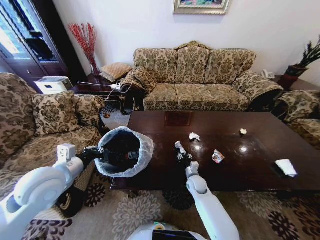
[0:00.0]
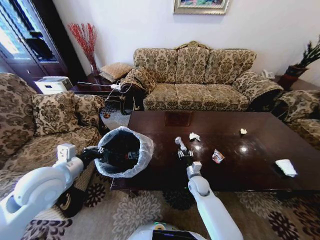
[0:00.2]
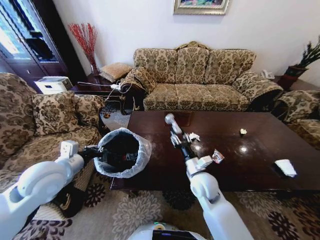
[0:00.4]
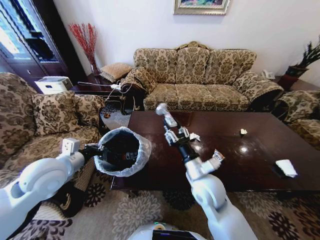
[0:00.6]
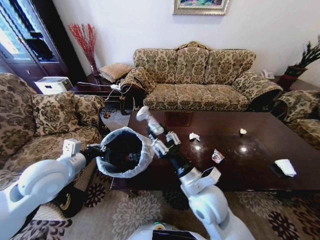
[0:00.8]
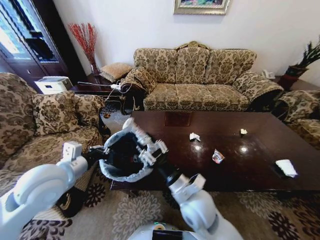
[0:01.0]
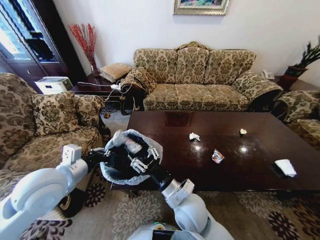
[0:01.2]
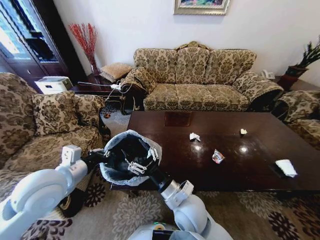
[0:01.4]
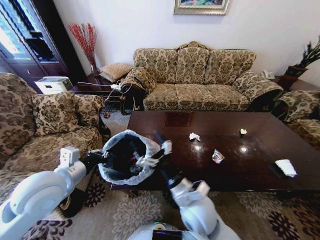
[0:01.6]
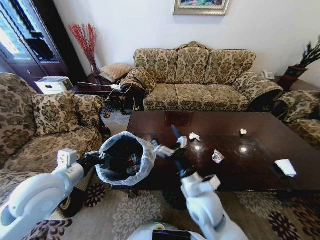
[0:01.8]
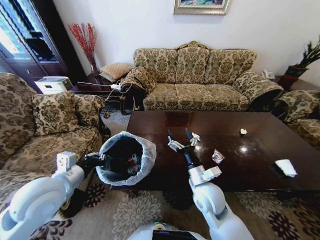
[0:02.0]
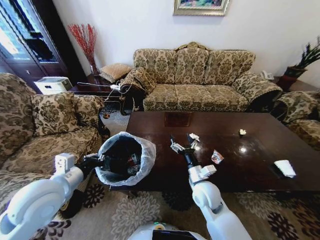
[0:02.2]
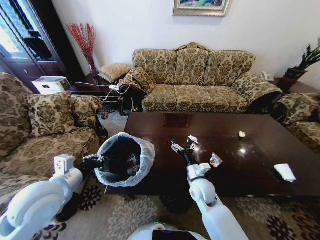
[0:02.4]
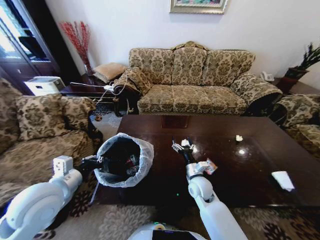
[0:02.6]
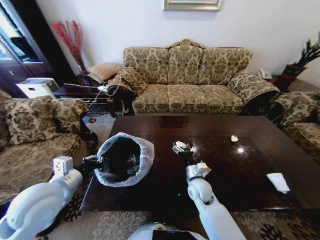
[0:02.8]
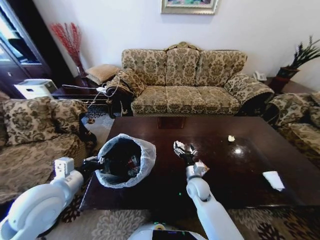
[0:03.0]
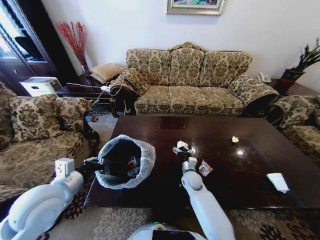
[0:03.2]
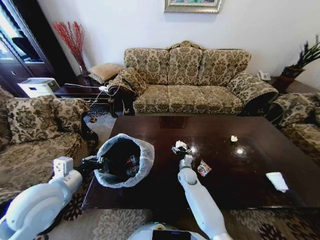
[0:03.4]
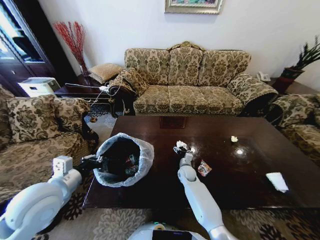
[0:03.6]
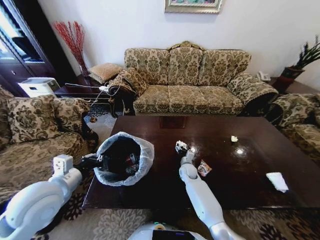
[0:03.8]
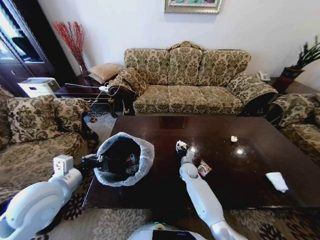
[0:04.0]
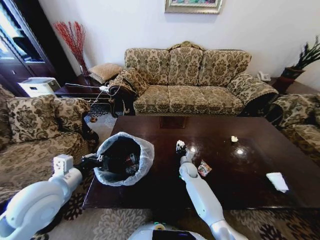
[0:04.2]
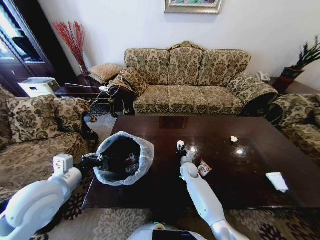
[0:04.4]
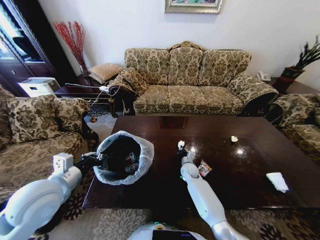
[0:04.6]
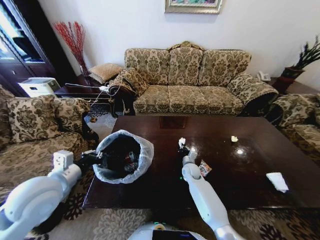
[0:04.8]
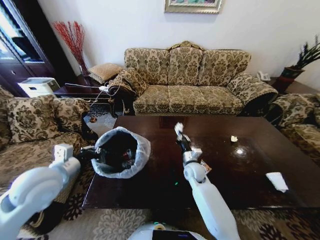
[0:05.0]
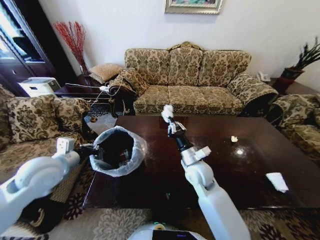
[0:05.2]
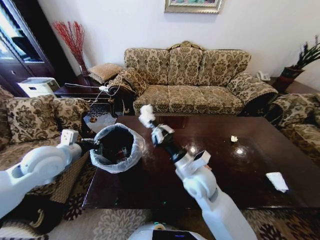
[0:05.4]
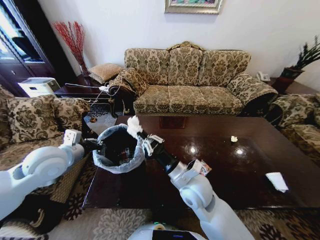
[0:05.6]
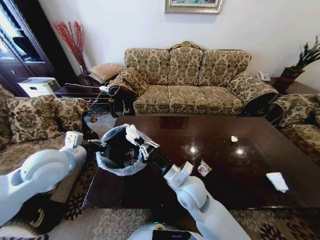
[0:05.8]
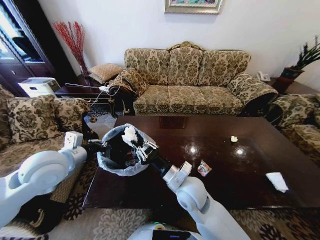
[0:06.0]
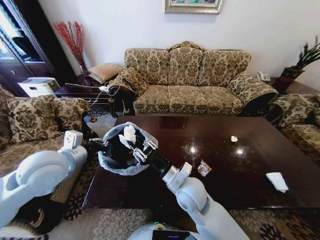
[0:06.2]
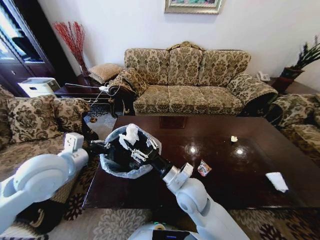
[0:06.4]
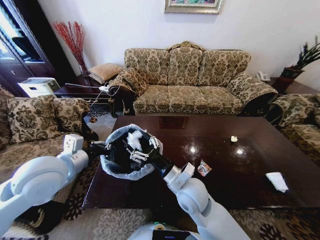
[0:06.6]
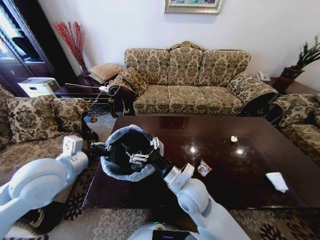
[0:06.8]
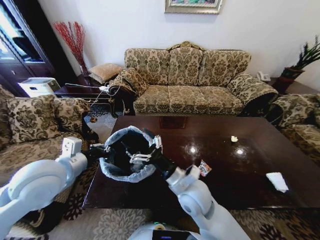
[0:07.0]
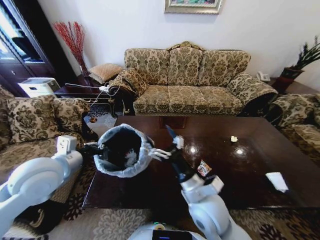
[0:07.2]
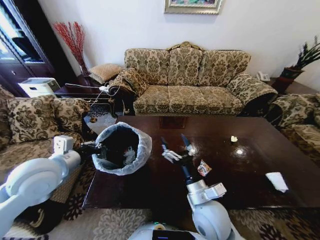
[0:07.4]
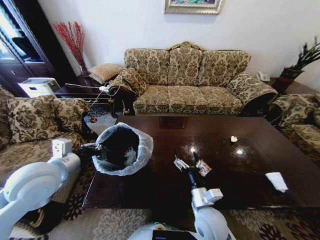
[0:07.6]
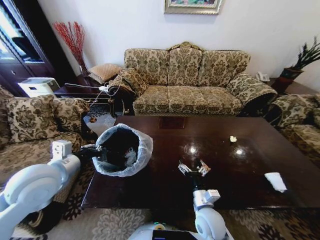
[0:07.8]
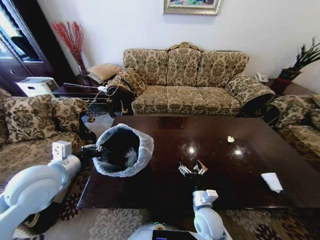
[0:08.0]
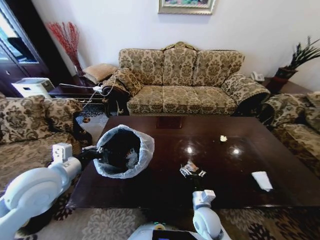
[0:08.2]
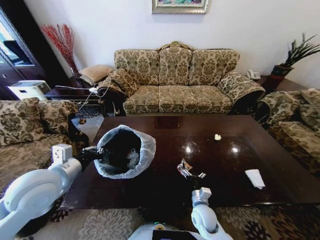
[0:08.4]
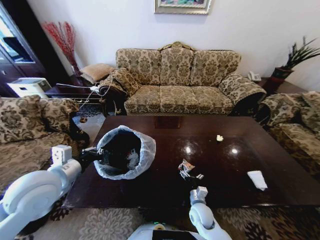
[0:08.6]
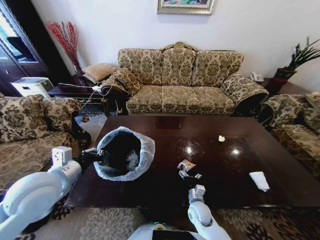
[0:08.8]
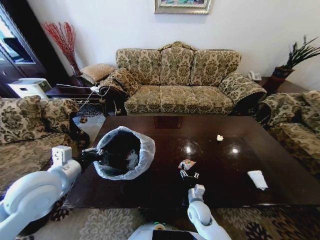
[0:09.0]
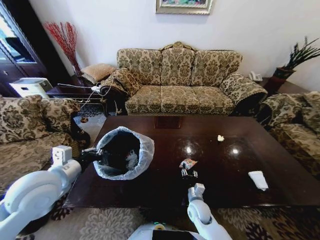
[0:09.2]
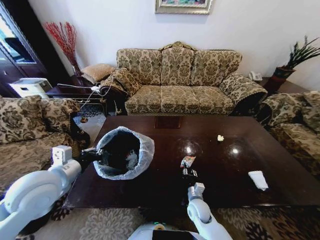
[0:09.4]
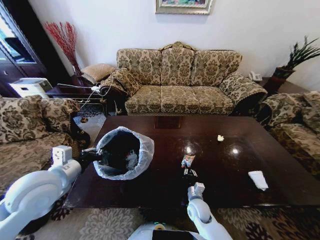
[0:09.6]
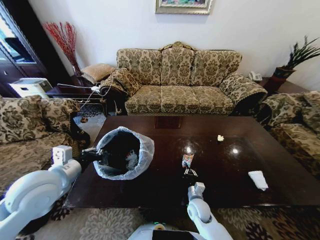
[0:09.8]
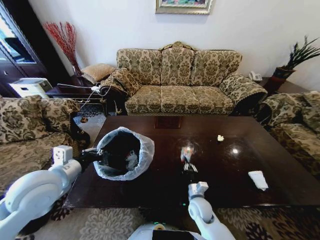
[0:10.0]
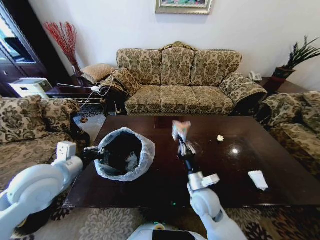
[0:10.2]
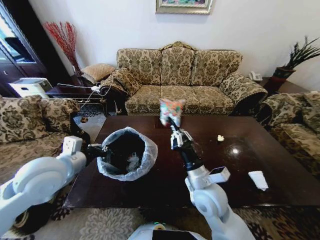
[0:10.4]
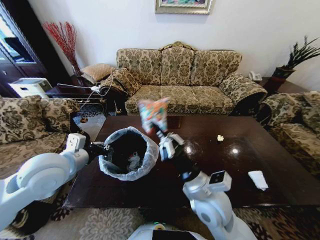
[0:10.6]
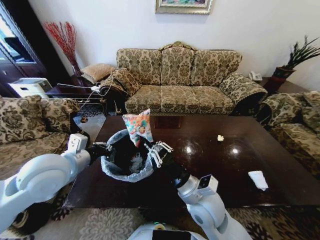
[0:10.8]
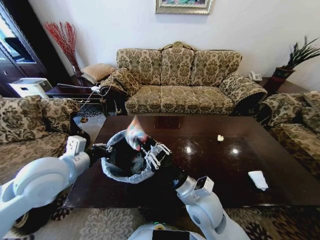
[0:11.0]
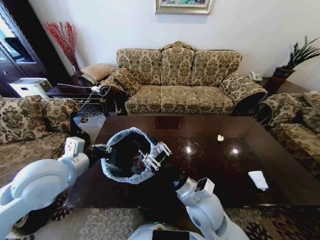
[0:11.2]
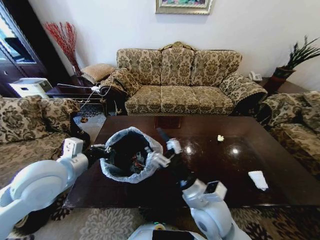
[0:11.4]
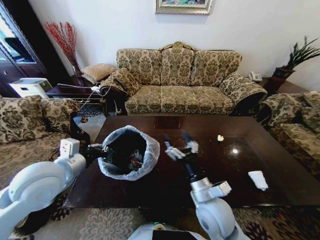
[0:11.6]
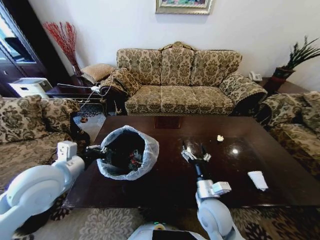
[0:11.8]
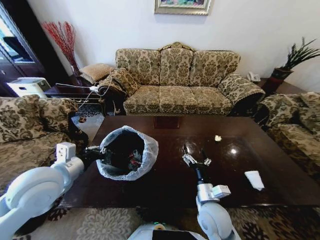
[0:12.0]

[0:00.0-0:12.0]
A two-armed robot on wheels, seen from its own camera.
Task of the whole recording: Move to the front of the table and place the trash on the table into the trash bin.
0:00.0 to 0:01.6: The right gripper travels upward, backward and to the left by some 30 cm, and opens its fingers.
0:01.6 to 0:03.0: The right gripper travels downward, forward and to the right by approximately 20 cm.
0:03.0 to 0:04.4: The right gripper is displaced forward and downward by roughly 15 cm, and closes up.
0:04.4 to 0:06.0: The right gripper goes roughly 25 cm upward and backward. Meanwhile the left gripper moves forward, some 5 cm.
0:06.0 to 0:07.6: The right gripper heads downward, backward and to the right, covering about 10 cm, and opens.
0:07.6 to 0:09.0: The right gripper travels downward by approximately 15 cm.
0:09.0 to 0:10.4: The right gripper goes approximately 25 cm upward, and closes up.
0:10.4 to 0:12.0: The right gripper heads downward, covering roughly 10 cm, and opens.

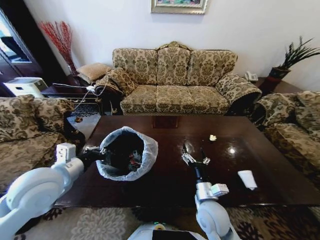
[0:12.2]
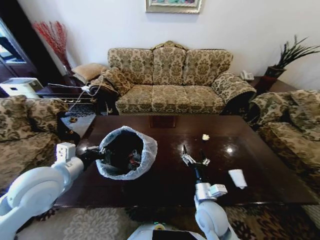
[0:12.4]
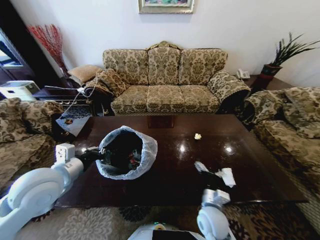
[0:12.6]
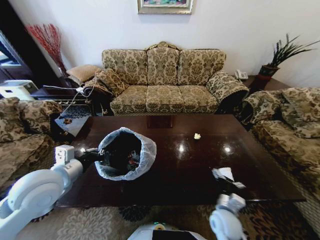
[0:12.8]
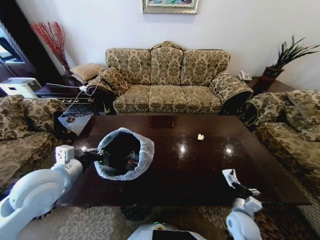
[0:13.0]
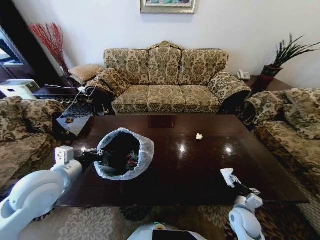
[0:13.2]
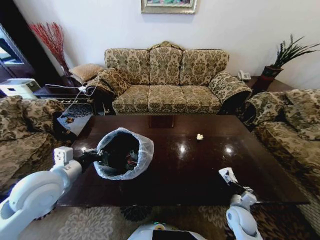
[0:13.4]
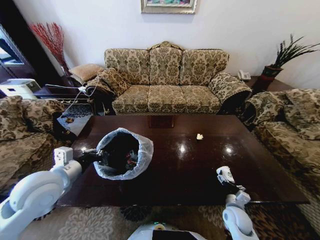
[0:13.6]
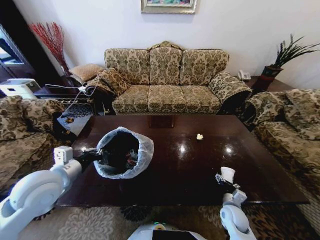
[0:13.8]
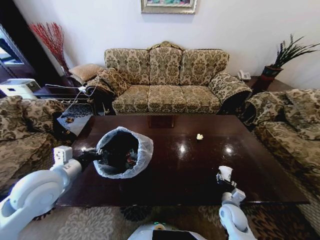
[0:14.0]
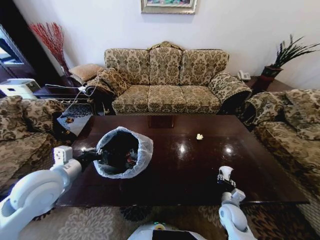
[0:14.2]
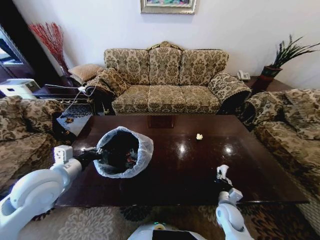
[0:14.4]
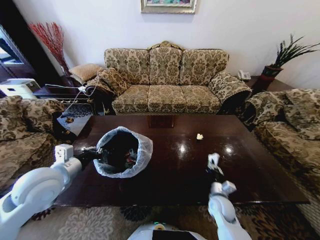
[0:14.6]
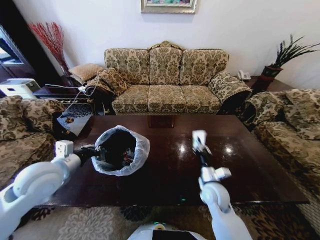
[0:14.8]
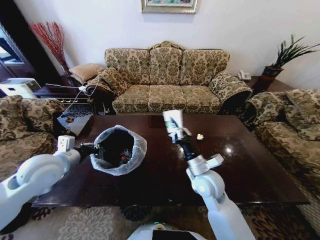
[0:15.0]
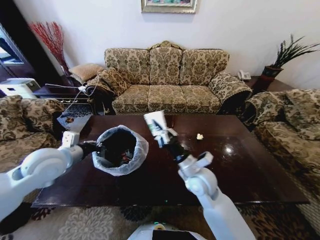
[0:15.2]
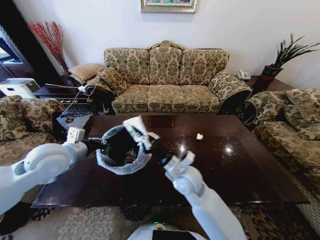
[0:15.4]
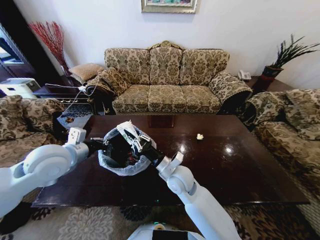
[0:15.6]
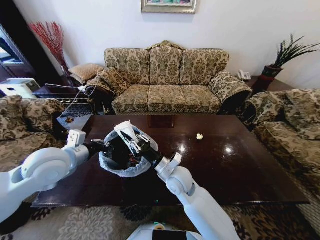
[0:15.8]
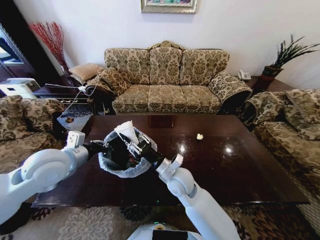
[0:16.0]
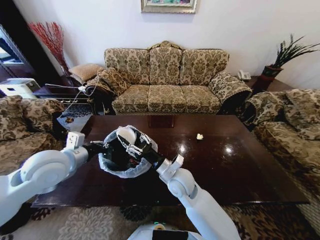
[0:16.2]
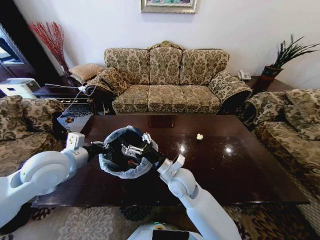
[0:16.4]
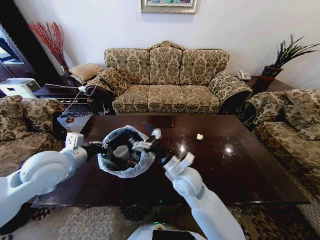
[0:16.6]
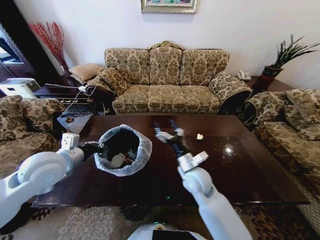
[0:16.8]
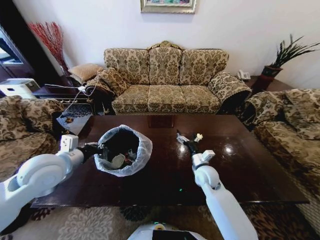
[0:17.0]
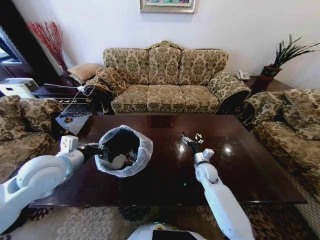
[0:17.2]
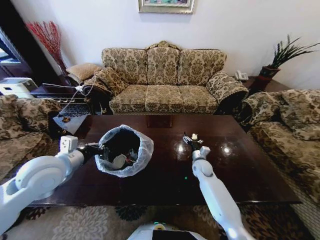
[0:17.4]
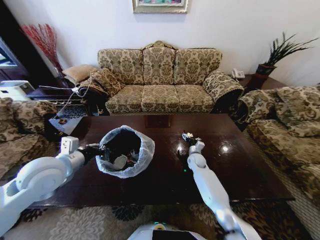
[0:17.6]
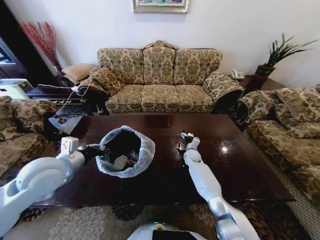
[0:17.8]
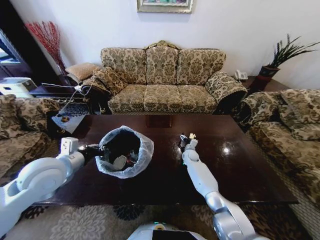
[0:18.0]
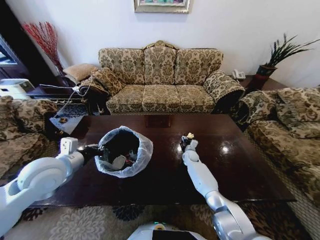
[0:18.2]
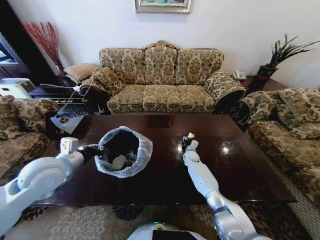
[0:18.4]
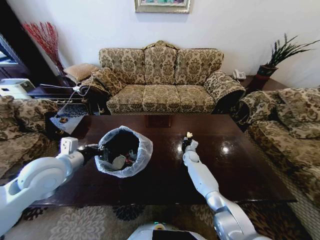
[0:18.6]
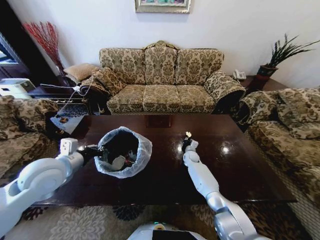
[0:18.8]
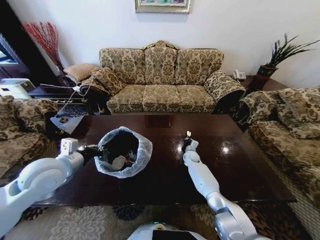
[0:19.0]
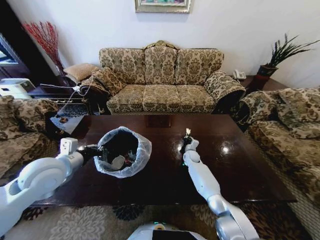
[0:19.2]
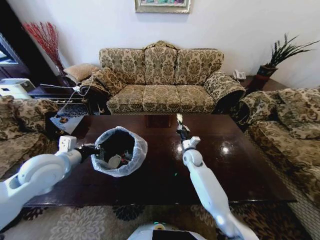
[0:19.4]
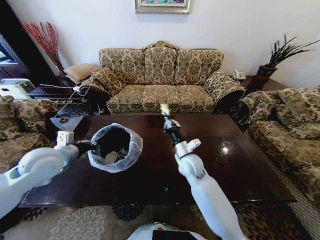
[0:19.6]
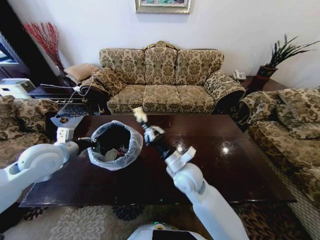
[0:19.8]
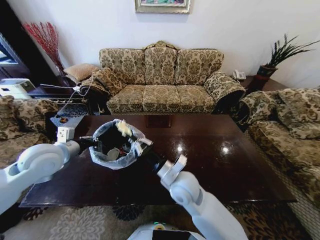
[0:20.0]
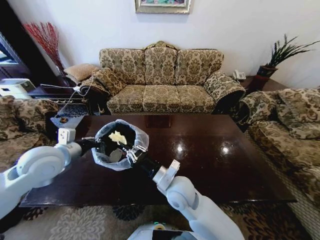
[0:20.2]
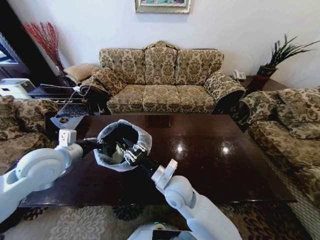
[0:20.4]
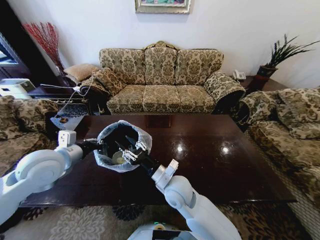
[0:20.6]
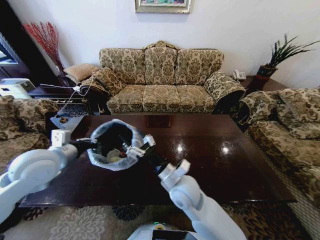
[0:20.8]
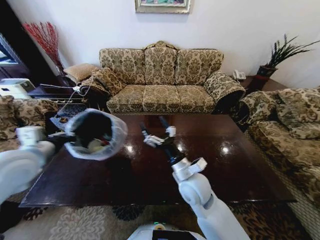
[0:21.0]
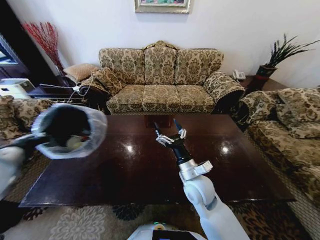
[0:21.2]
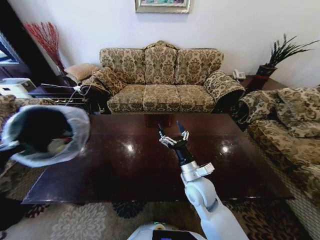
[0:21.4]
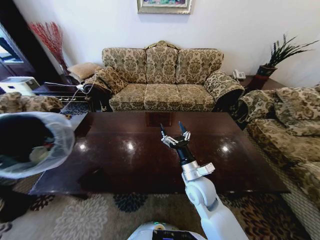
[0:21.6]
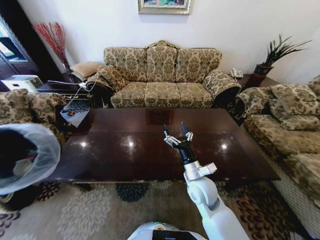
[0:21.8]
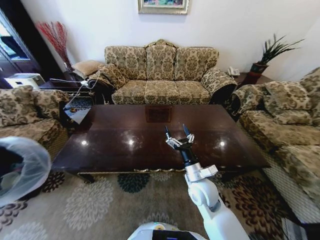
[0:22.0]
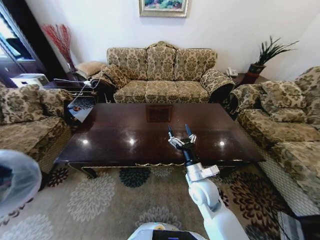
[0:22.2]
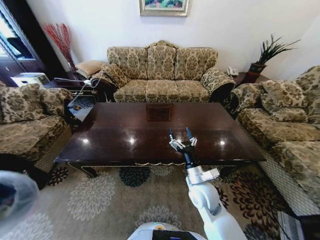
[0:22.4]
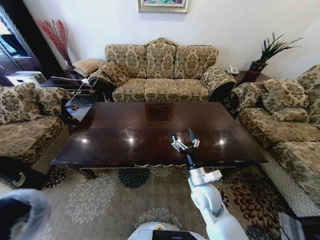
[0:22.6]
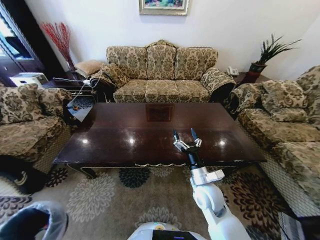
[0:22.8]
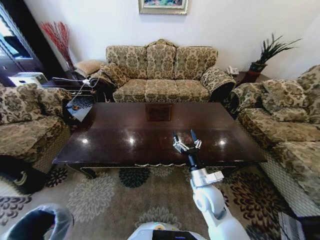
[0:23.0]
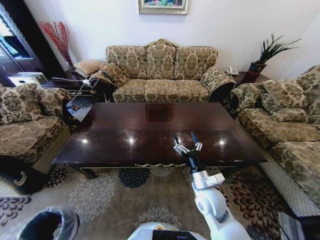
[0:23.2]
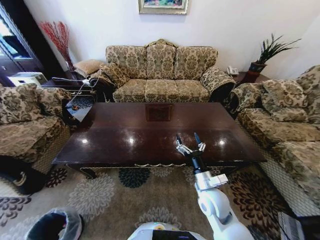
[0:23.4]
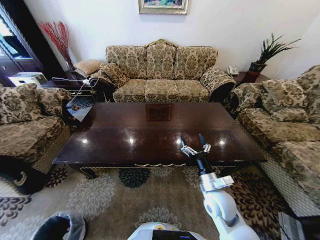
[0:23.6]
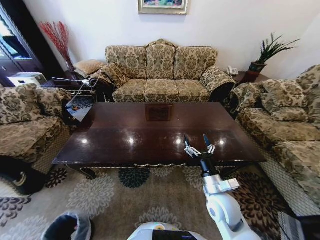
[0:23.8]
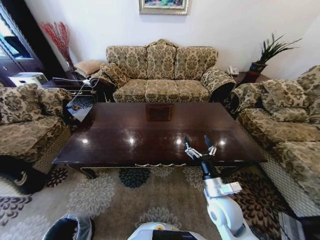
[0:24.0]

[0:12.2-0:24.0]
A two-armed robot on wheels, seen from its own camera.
Task of the whole recording: Move to the front of the table and place the trash on the table into the trash bin.
0:12.2 to 0:13.6: The right gripper moves to the right and downward, approximately 20 cm.
0:13.6 to 0:15.2: The left gripper shifts about 5 cm forward, while the right gripper travels upward and to the left by about 30 cm, and closes up.
0:15.2 to 0:16.6: The right gripper opens.
0:16.6 to 0:18.2: The right gripper travels forward, downward and to the right by roughly 35 cm.
0:18.2 to 0:19.6: The right gripper is displaced upward, backward and to the left by roughly 25 cm, and closes its fingers.
0:19.6 to 0:21.0: The right gripper goes approximately 10 cm backward, and opens its fingers.
0:21.0 to 0:22.6: The left gripper travels downward, backward and to the left by about 40 cm. Meanwhile the right gripper is displaced downward and to the right by roughly 10 cm.
0:22.6 to 0:24.0: The left gripper moves downward, about 30 cm. The right gripper ends up some 5 cm from where it was.
